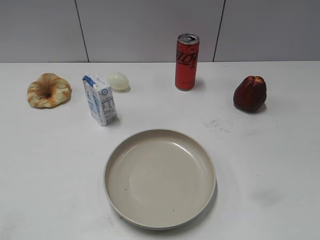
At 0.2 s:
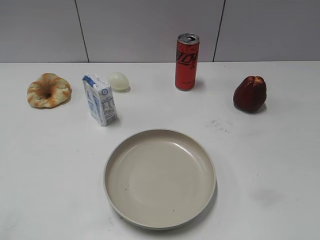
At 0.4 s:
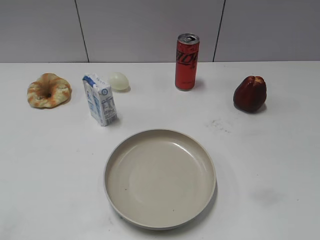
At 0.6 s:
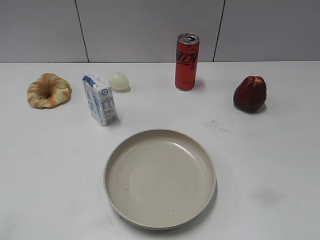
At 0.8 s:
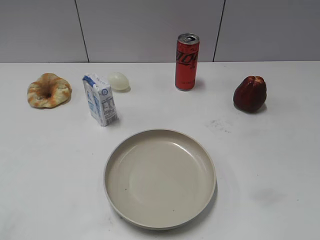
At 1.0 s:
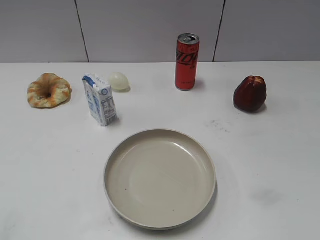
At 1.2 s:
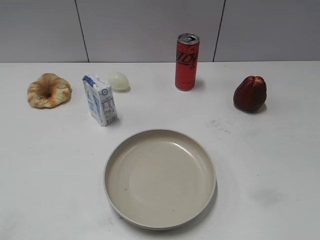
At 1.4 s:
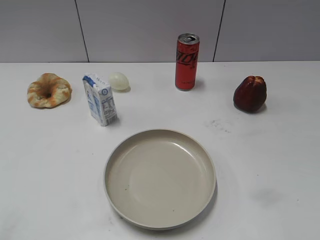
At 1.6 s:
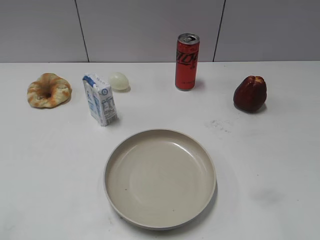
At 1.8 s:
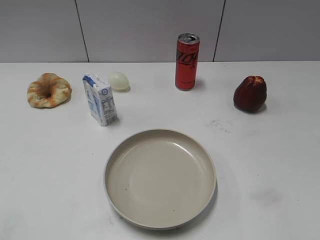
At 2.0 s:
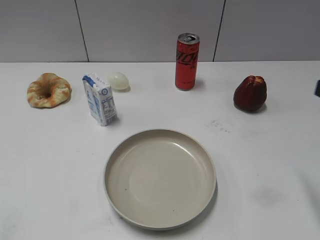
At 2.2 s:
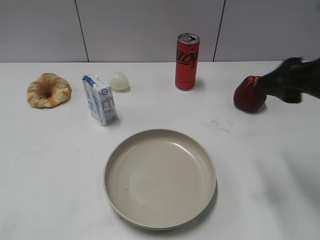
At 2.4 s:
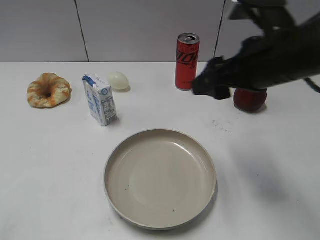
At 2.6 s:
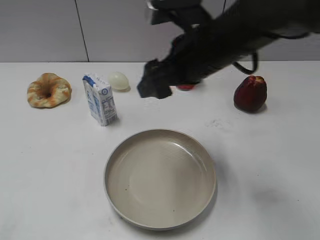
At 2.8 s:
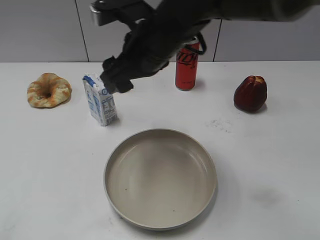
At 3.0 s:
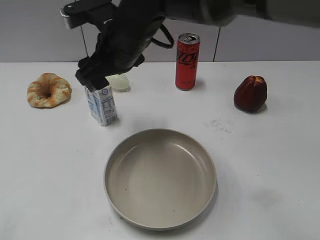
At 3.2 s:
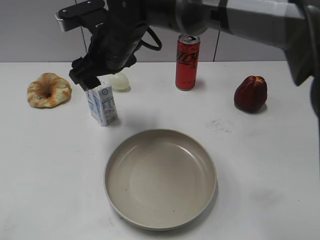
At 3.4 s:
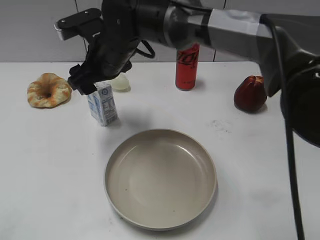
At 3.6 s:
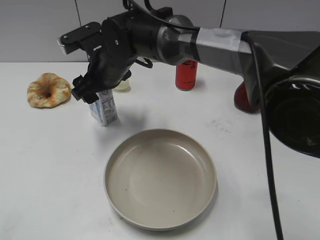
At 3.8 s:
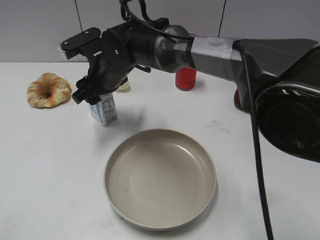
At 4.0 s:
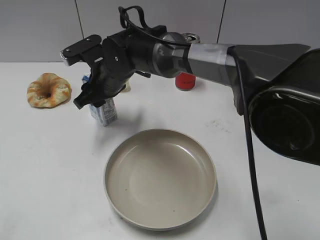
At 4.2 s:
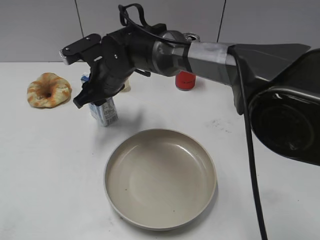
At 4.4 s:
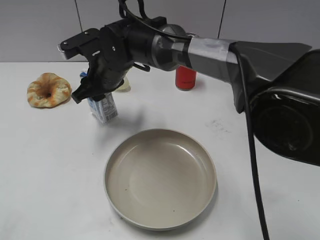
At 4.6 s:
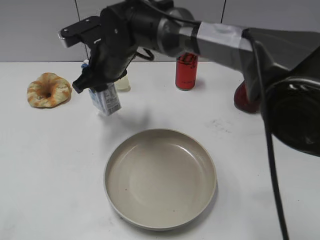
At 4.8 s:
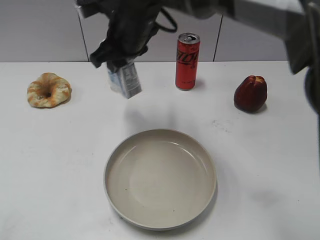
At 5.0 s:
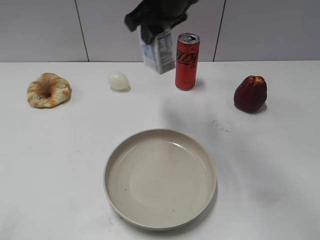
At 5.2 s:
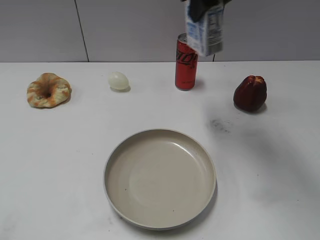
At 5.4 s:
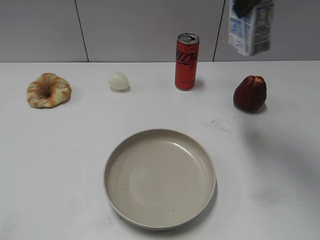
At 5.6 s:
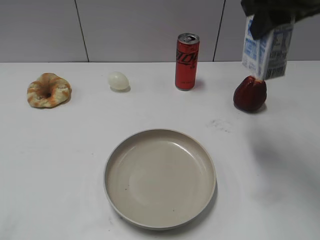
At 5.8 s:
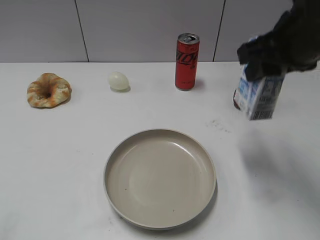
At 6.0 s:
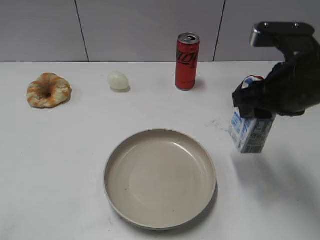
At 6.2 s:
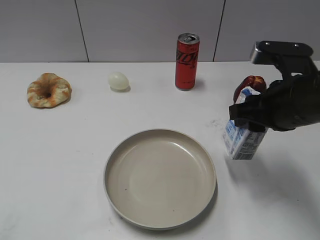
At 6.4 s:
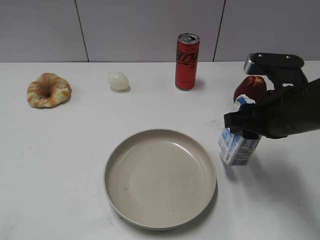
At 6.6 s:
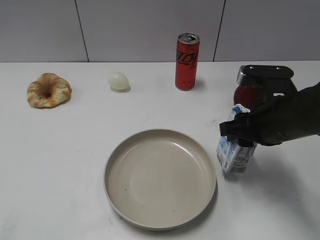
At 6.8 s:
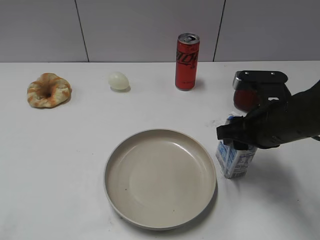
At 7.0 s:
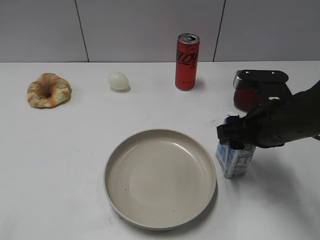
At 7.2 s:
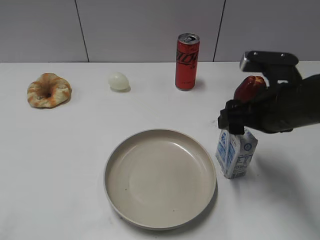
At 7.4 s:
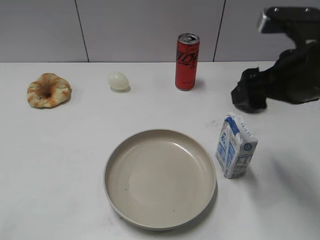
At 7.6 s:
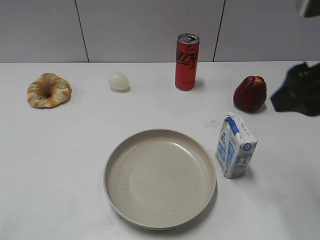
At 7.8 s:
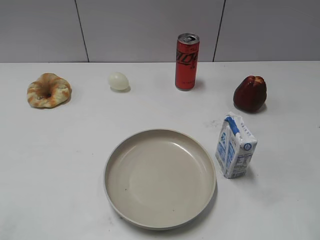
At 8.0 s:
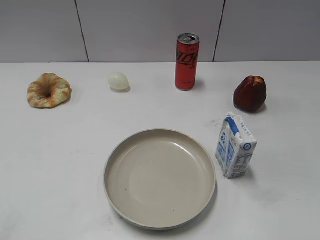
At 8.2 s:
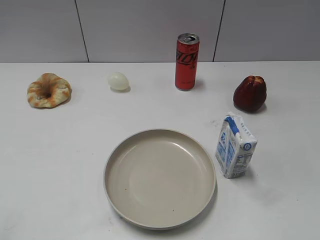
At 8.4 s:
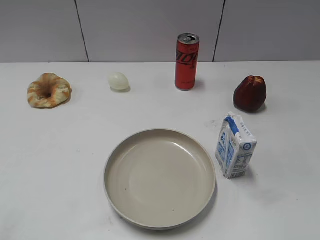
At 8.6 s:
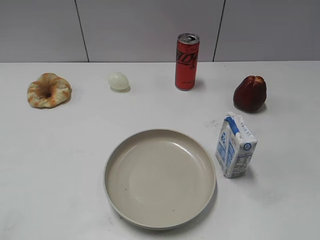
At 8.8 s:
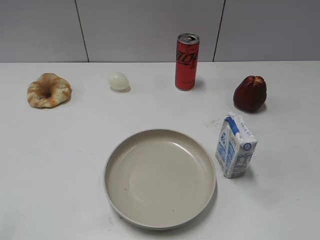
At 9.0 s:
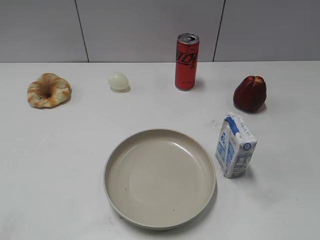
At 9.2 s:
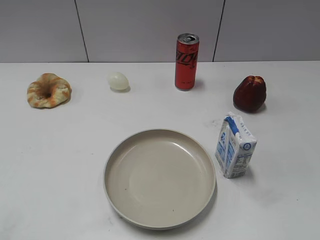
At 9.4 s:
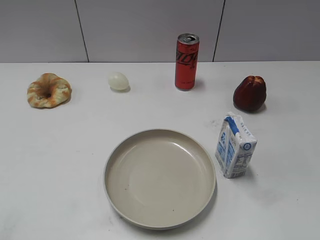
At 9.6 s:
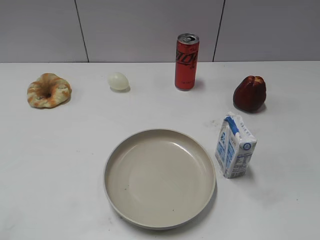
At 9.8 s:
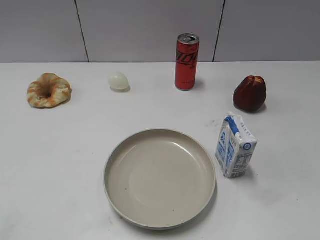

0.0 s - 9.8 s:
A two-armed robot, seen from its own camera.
Step, 1.0 s - 4.2 s: Grasp the milk with right gripper.
Step, 4.6 s - 7.2 s: Place the milk on the table with right gripper.
1.4 s - 2.8 s: The right gripper travels forward and to the left by roughly 40 cm.
2.8 s - 4.2 s: The right gripper heads to the left, downward and forward, covering about 15 cm, and closes up.
4.2 s - 5.6 s: The right gripper shifts about 35 cm to the right and upward.
5.6 s - 7.0 s: The right gripper moves downward, about 20 cm, and opens.
7.0 s - 8.4 s: The right gripper is displaced backward, to the right and upward by some 25 cm, and opens.

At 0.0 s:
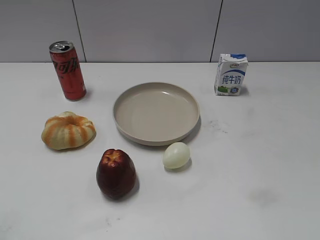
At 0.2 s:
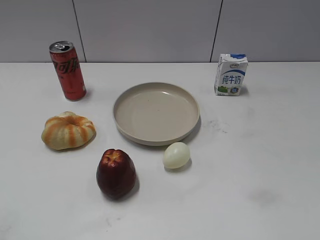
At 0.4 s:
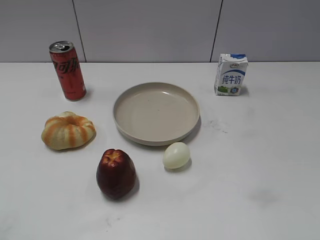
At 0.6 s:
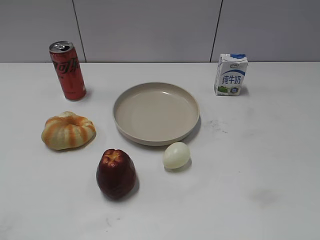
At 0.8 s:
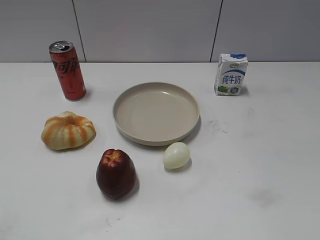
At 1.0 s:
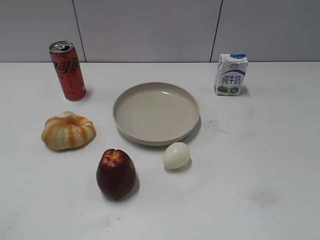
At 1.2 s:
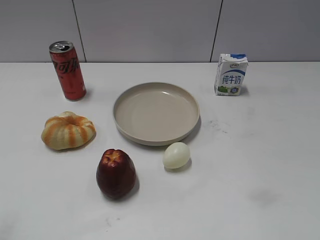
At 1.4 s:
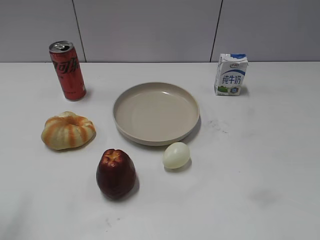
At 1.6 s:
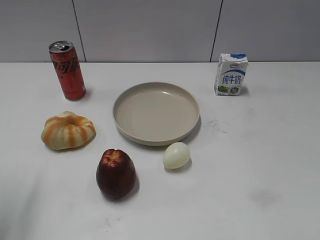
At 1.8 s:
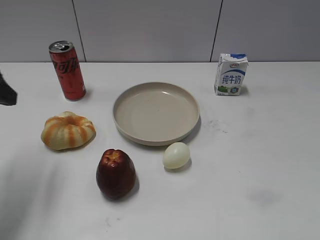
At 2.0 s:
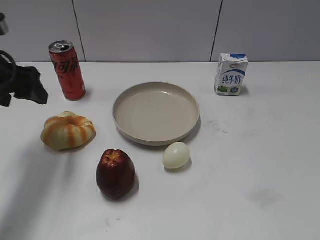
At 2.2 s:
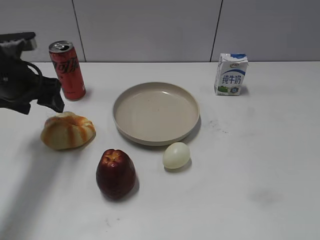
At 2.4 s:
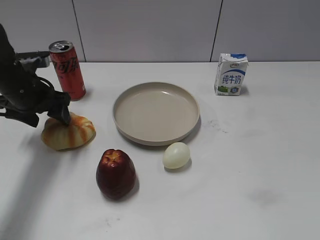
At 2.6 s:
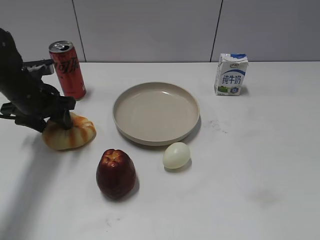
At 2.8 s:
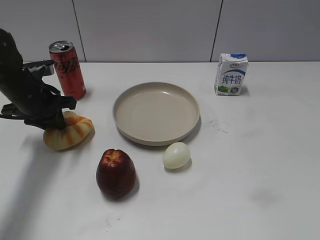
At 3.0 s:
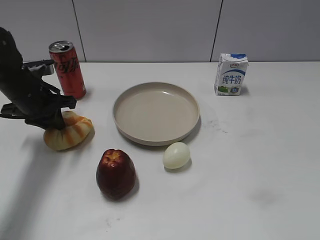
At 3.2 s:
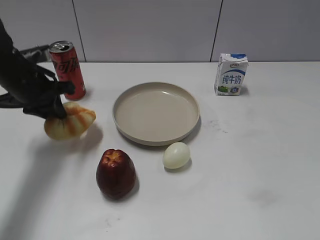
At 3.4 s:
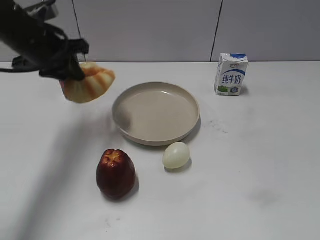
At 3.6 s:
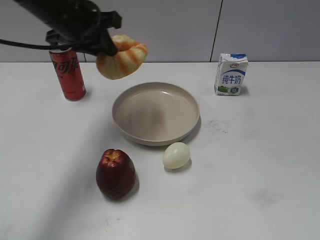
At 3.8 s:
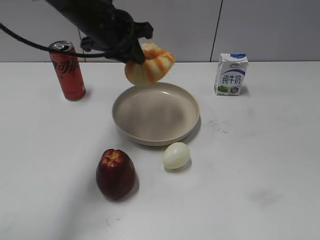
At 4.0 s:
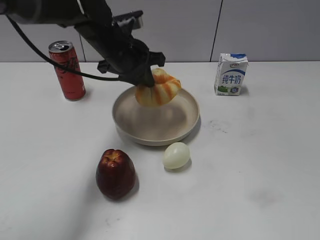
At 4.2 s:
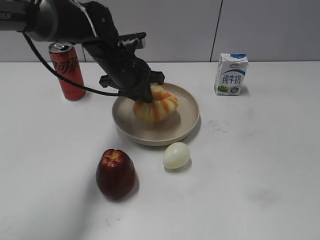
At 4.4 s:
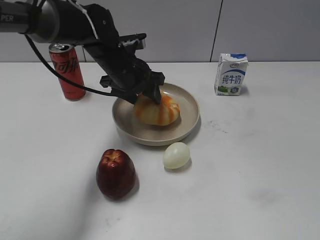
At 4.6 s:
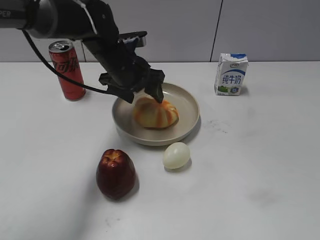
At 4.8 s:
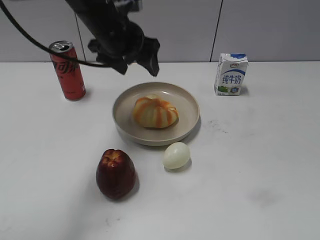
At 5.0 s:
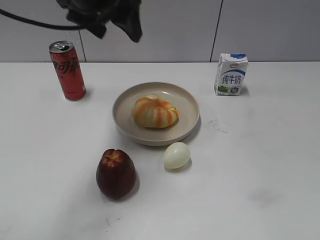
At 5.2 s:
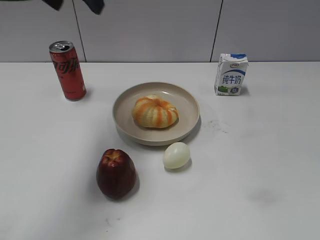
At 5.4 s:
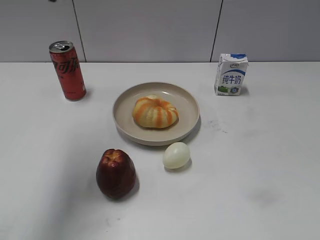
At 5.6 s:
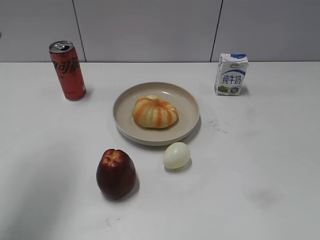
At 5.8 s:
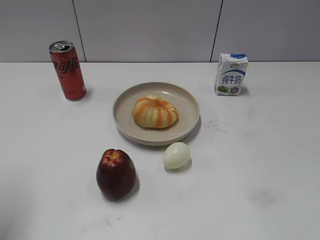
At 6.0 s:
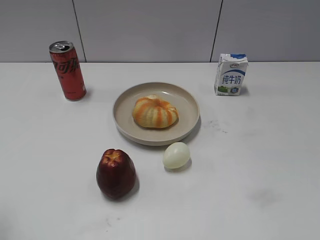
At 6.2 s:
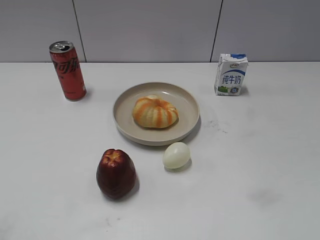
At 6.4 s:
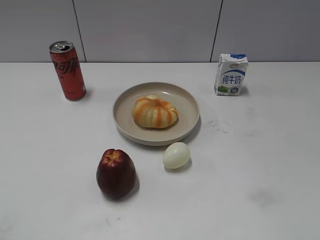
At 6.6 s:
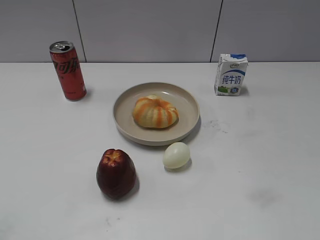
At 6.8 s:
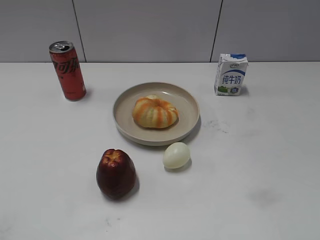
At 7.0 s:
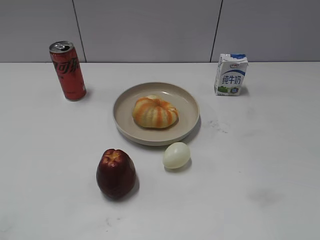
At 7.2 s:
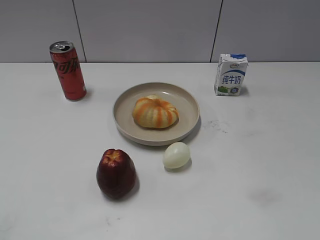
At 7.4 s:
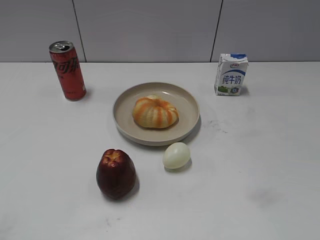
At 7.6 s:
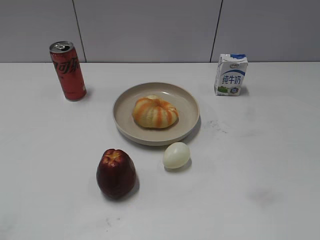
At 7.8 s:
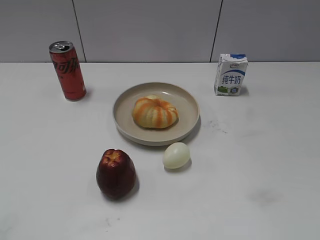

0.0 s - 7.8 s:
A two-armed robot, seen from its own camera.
Step, 1.0 s - 2.8 s: Grasp the round bread with left gripper.
Step, 3.0 s - 4.6 s: Place the round bread on the plate with left gripper.
1.6 s - 3.2 s: The left gripper moves forward, downward and to the right, approximately 25 cm, and closes up.
3.2 s - 4.6 s: The left gripper is displaced to the right by approximately 15 cm, and opens its fingers.
4.6 s - 6.2 s: The left gripper goes about 40 cm backward and to the left.

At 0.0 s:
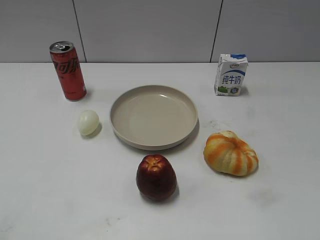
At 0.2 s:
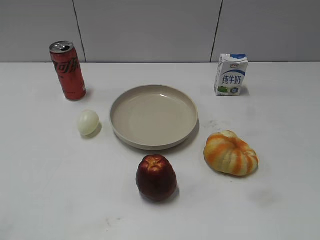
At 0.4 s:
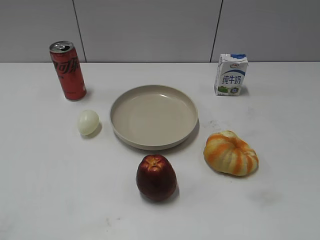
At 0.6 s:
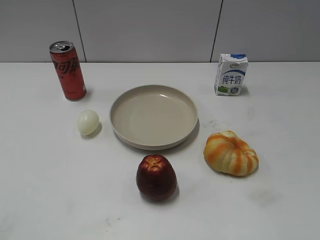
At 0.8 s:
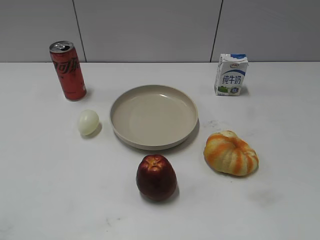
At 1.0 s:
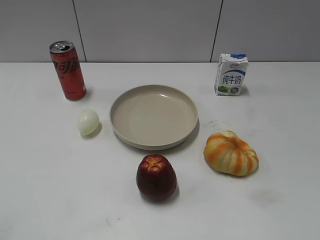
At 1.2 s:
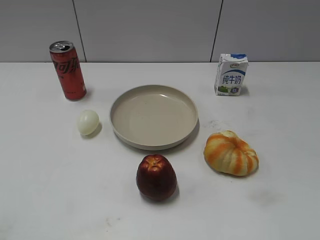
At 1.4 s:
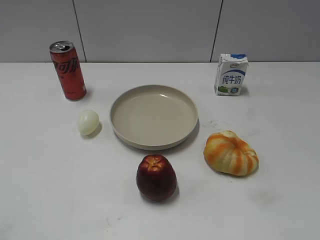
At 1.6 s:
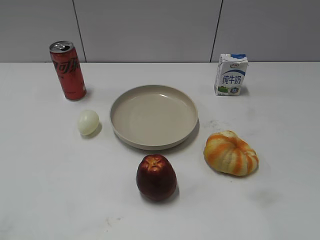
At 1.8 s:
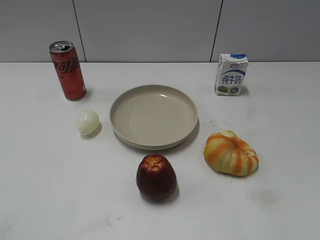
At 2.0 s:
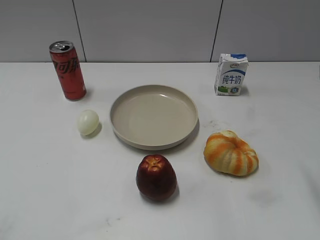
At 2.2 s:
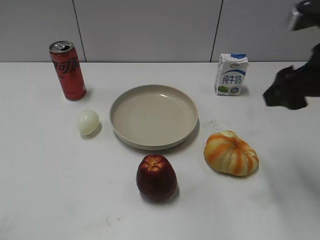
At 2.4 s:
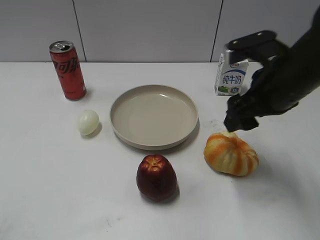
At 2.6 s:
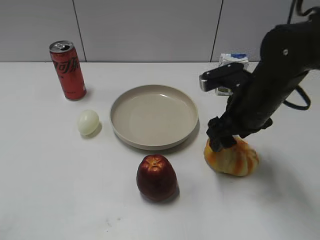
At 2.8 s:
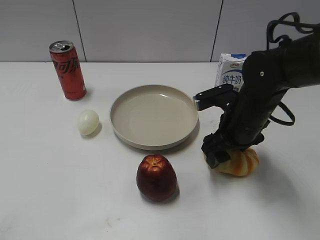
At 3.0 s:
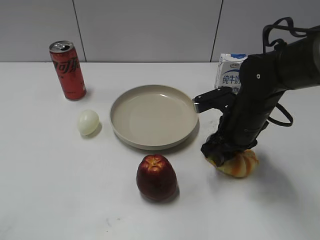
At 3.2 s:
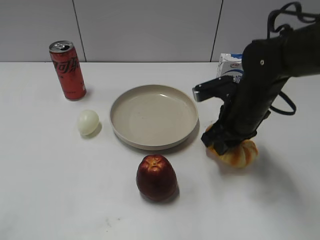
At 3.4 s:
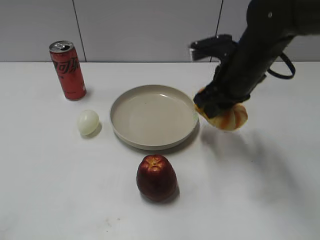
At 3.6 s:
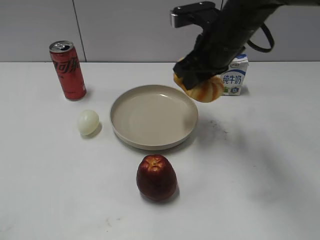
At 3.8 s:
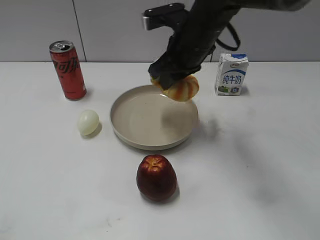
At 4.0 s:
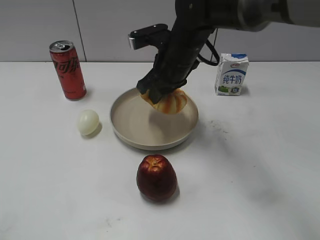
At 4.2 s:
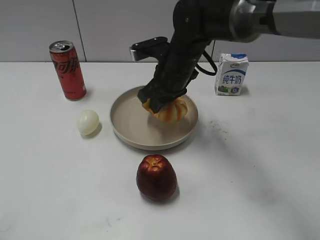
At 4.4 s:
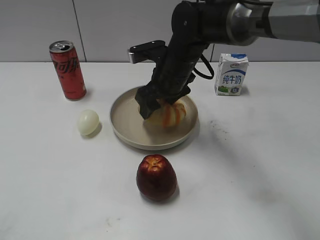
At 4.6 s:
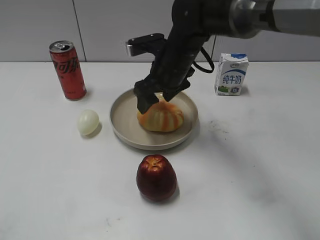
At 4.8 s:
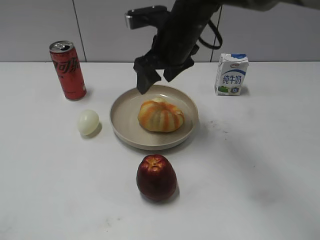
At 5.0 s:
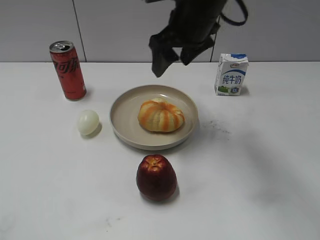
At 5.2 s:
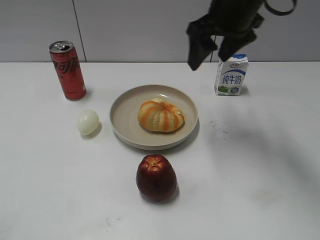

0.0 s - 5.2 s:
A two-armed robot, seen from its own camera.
Step, 1.2 s - 3.0 s: Grasp the round bread with right gripper.
Step, 3.2 s - 4.6 s: Place the round bread on the plate with right gripper.
1.8 s - 3.4 s: The right gripper heads forward, to the left and downward, covering about 30 cm, and closes.
3.4 s - 5.2 s: The right gripper heads upward, covering roughly 10 cm, and opens its fingers.
